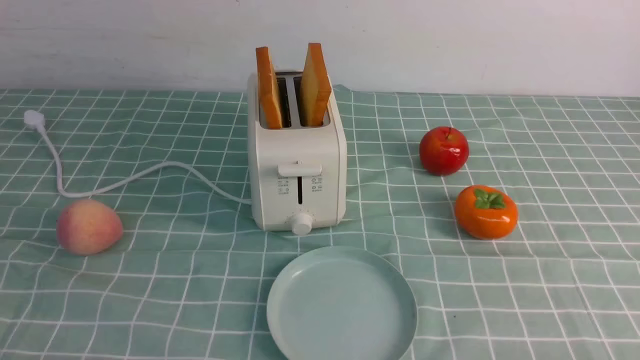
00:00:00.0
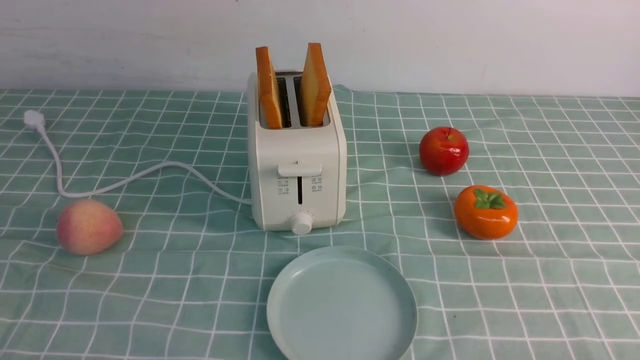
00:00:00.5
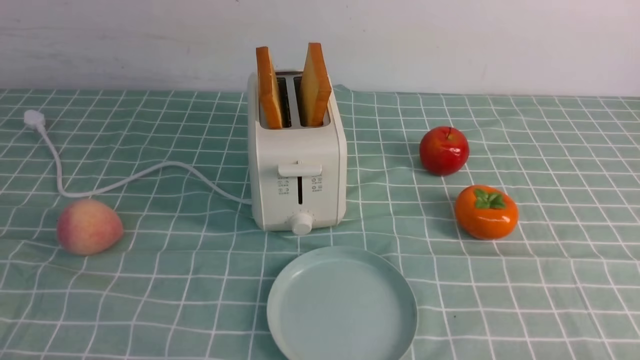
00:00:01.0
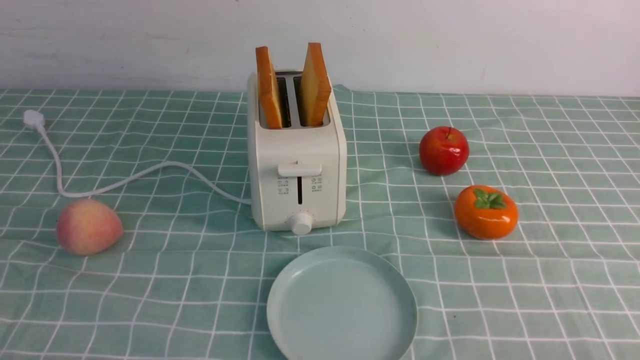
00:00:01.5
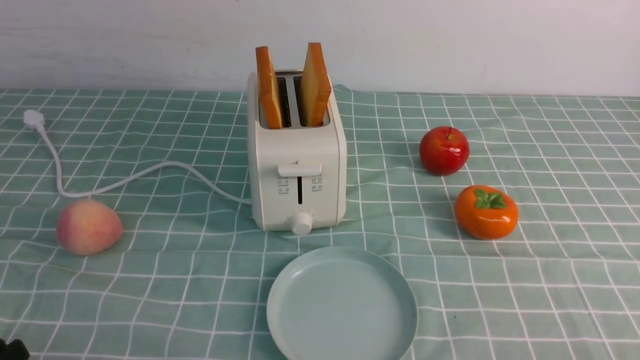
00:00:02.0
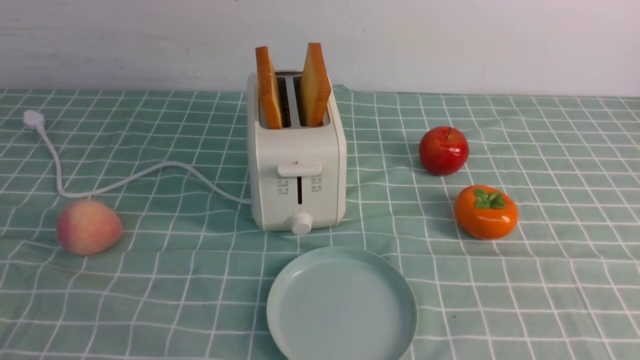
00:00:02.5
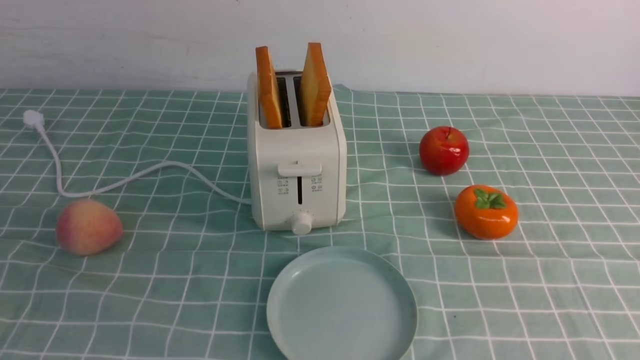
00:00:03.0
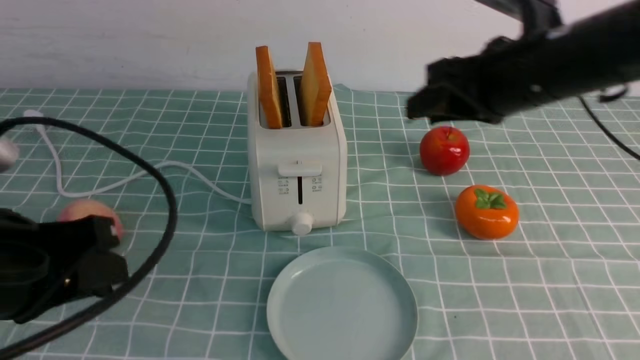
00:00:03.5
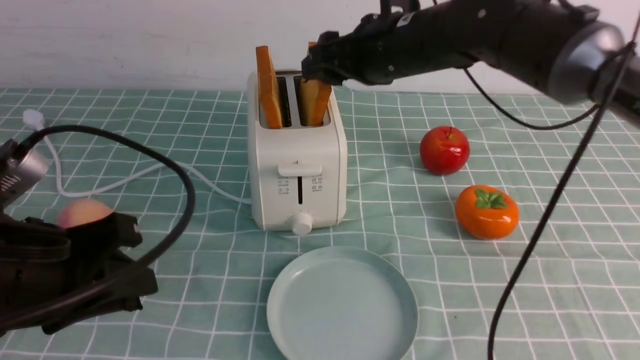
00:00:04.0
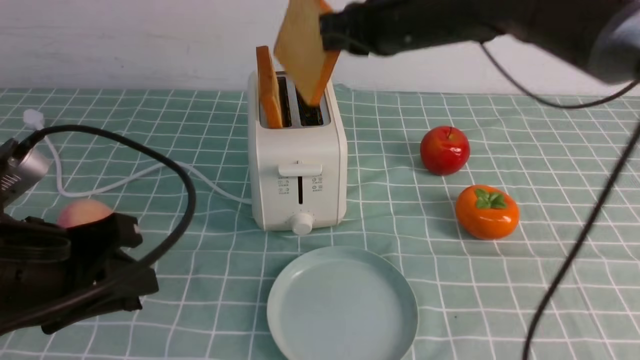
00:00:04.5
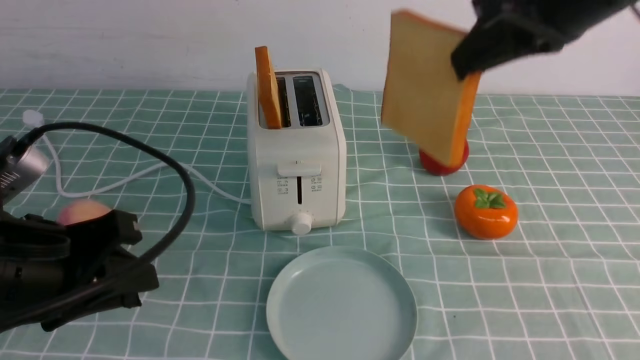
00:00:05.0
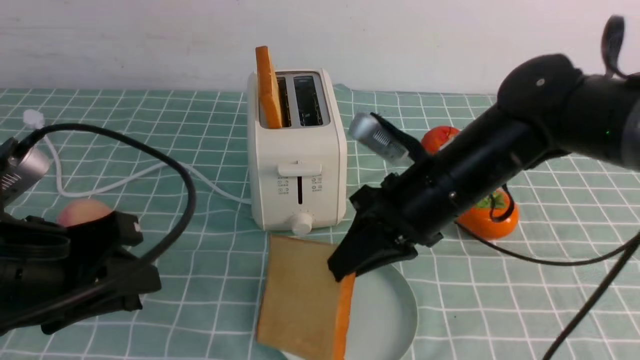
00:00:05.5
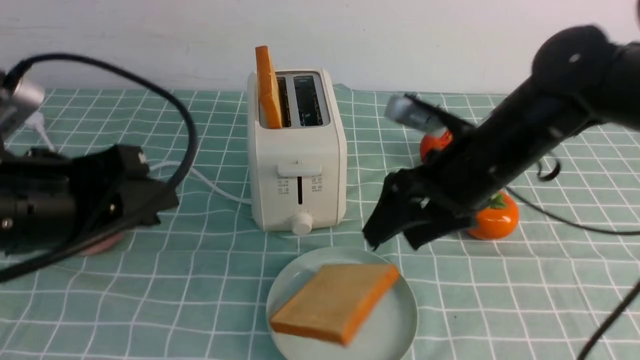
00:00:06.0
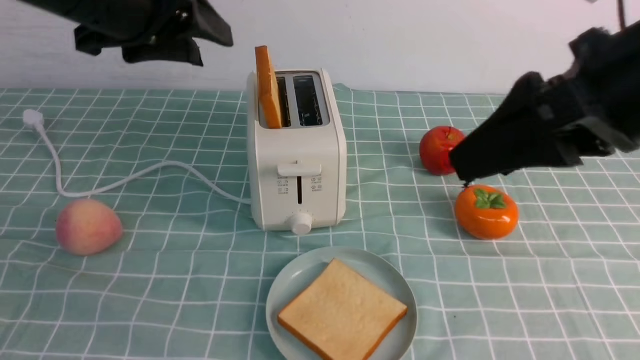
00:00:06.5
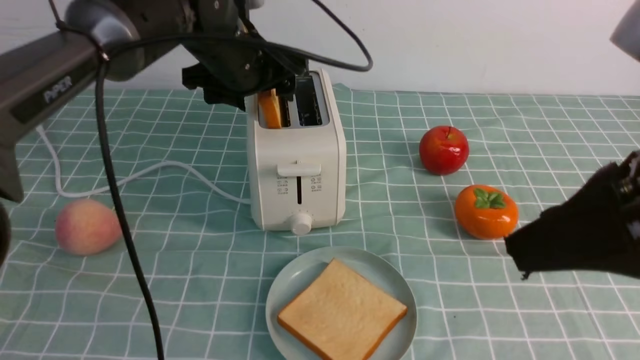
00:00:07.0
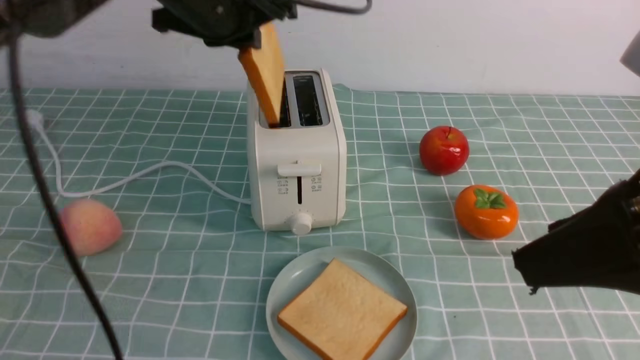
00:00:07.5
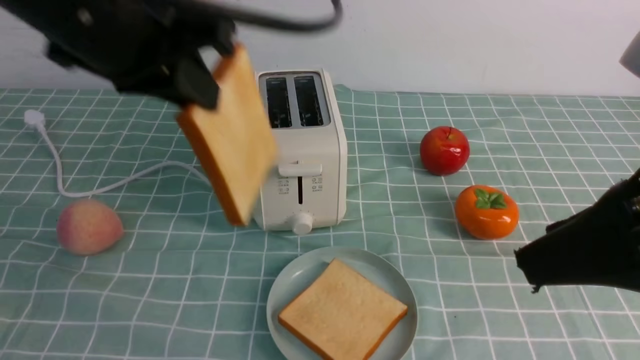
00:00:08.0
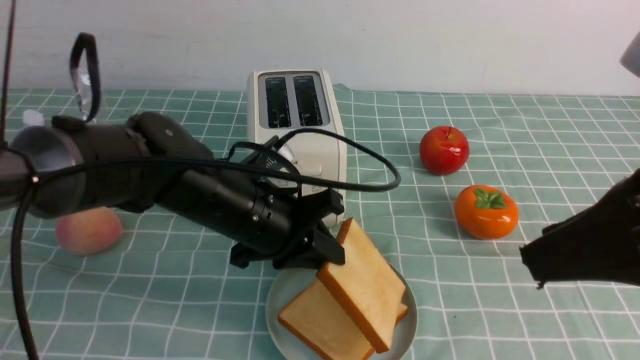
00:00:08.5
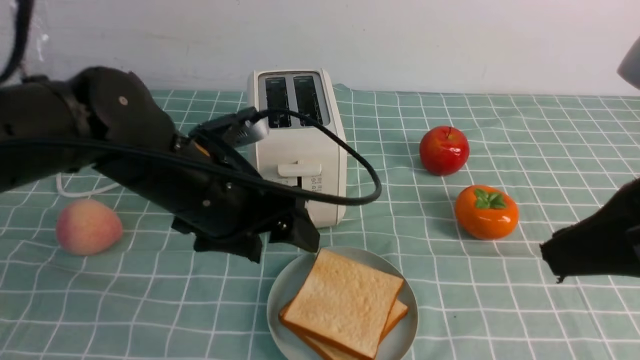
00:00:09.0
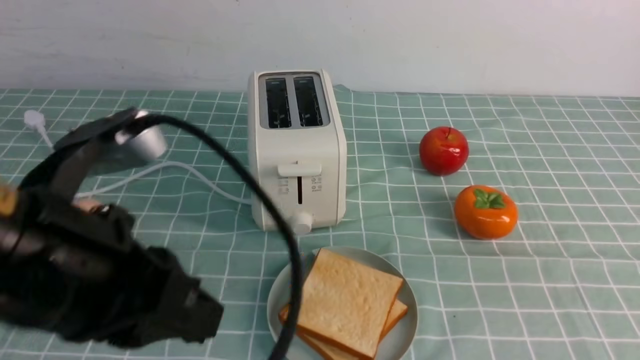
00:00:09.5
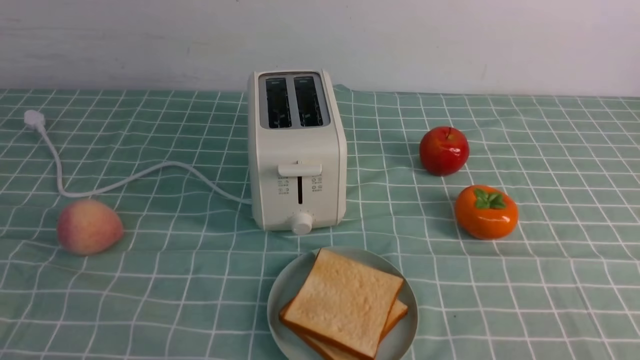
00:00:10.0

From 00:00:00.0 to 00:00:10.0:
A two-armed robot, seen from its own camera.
Task of the whole recording: take toasted bread from bread machine on blue coffee table place on plate.
Step, from 00:00:00.0 to 00:00:04.0: use the right arm to take out a slice of bread.
Step, from 00:00:04.5 to 00:00:06.0: use the right arm to put a slice of bread into the plate.
Step, from 00:00:06.5 to 00:00:07.0: use the left arm to take out a slice of bread.
Step, from 00:00:08.0 to 00:00:08.5: use the left arm to put a slice of bread into the empty plate.
From 00:00:02.0 to 00:00:04.0: The left gripper shifts some 15 cm forward and upward; the right gripper moves forward and to the left, approximately 40 cm.
From 00:00:04.0 to 00:00:06.0: The left gripper ends up approximately 5 cm from where it was, while the right gripper goes up and down, approximately 15 cm each way, reversing 2 times, and closes and opens again.
From 00:00:06.0 to 00:00:08.0: The right gripper shifts approximately 20 cm backward, upward and to the right, while the left gripper heads to the right and upward, covering about 10 cm, travels forward and back again, roughly 25 cm each way, and closes its fingers.
From 00:00:08.0 to 00:00:10.0: The left gripper heads backward, covering approximately 25 cm, and opens, then closes again. The right gripper goes some 20 cm downward, backward and to the right, and closes its fingers.

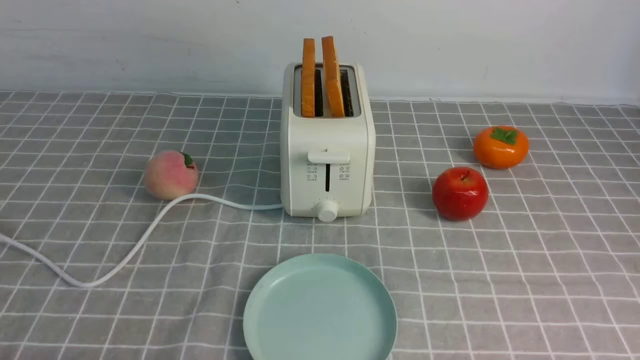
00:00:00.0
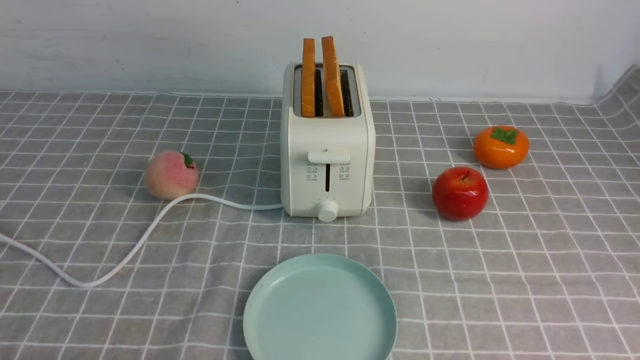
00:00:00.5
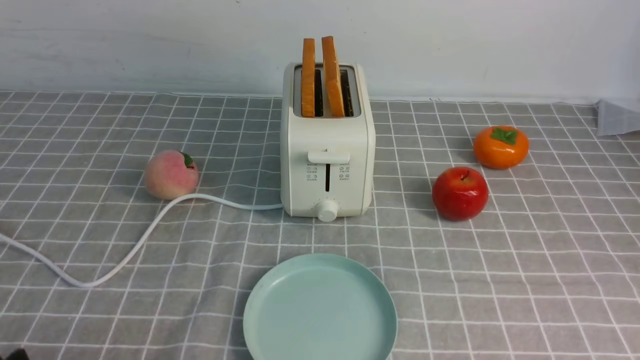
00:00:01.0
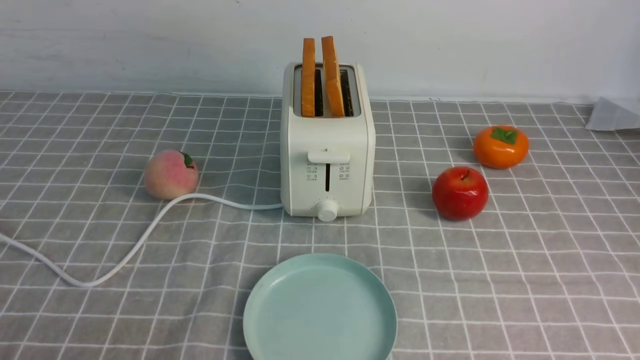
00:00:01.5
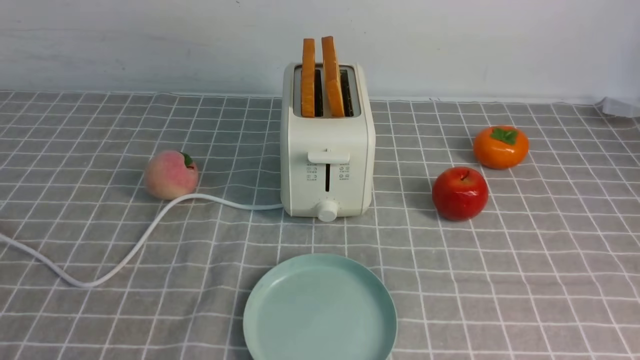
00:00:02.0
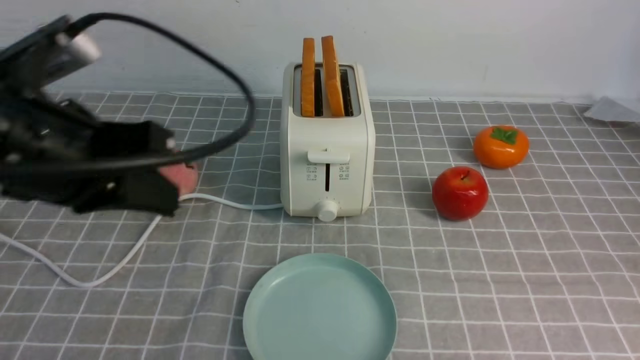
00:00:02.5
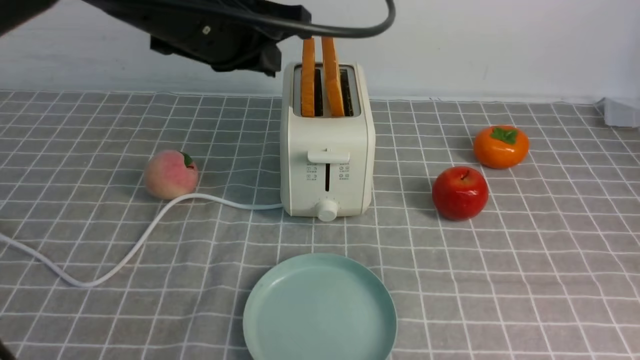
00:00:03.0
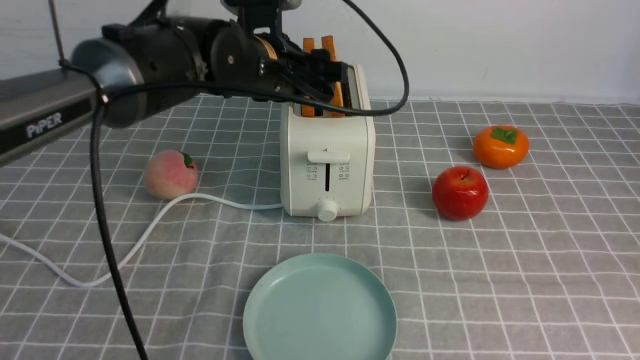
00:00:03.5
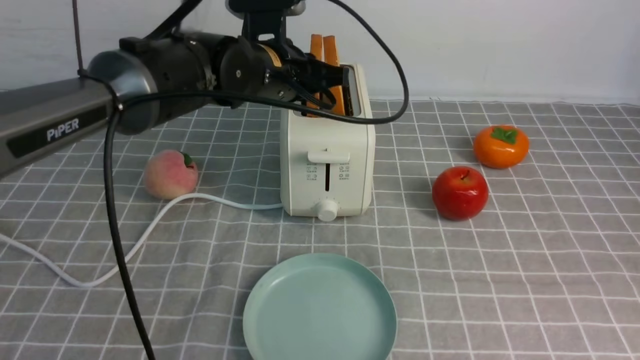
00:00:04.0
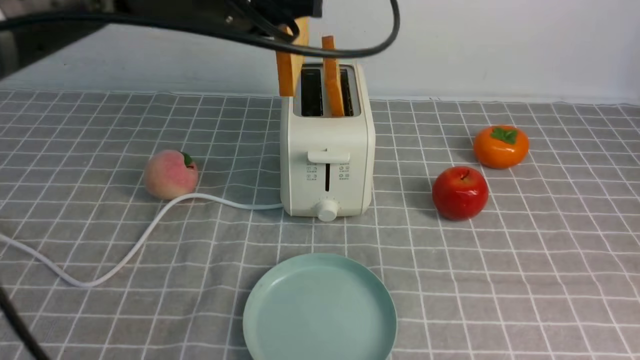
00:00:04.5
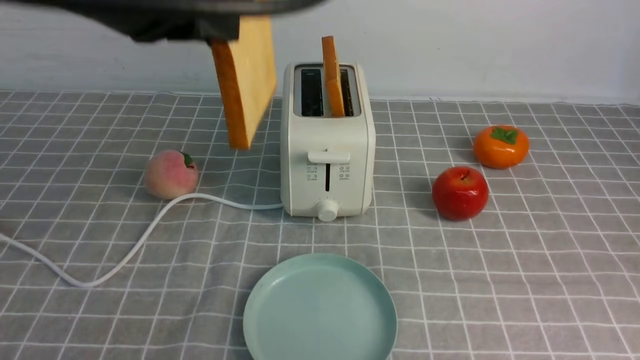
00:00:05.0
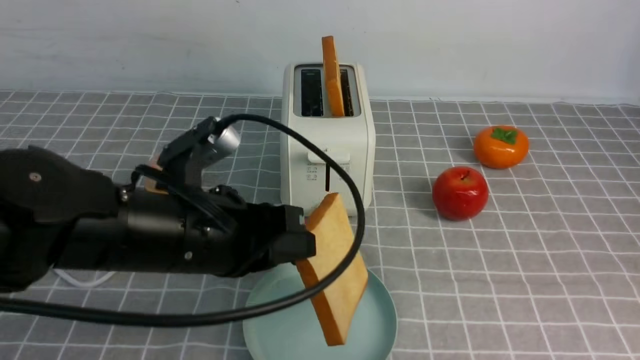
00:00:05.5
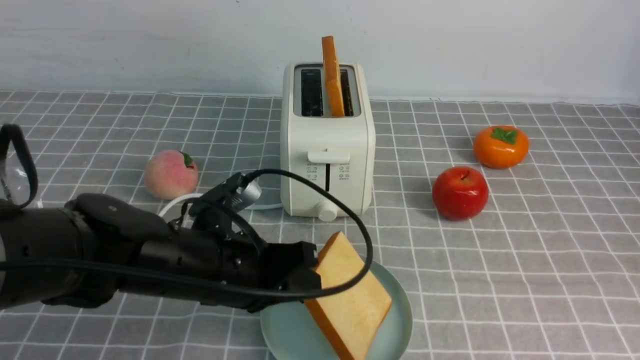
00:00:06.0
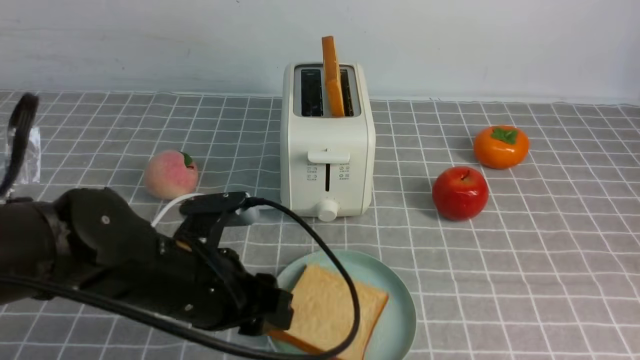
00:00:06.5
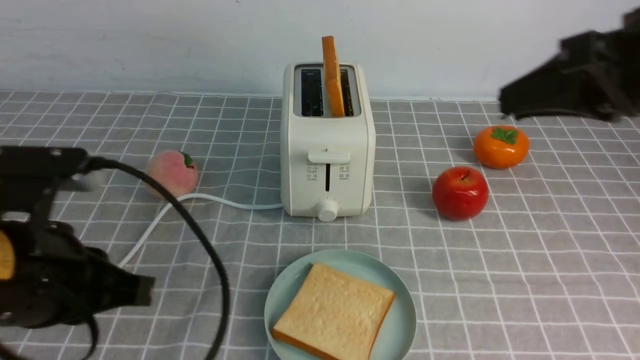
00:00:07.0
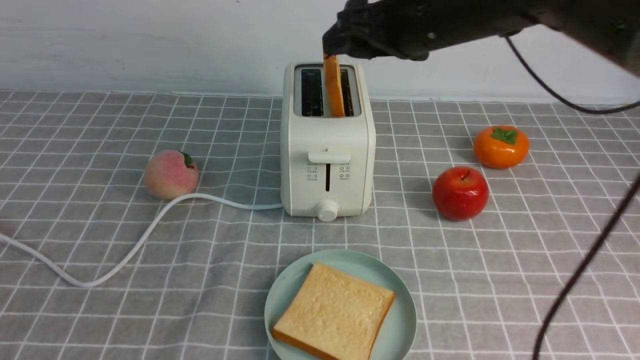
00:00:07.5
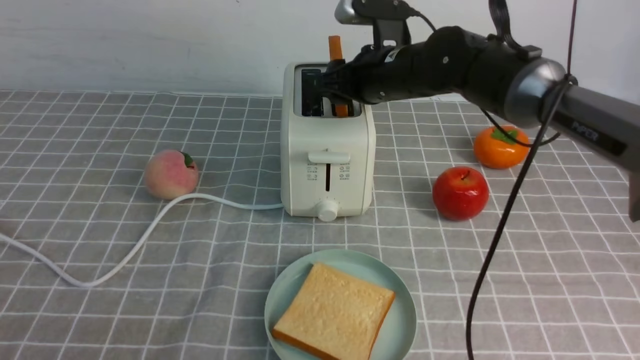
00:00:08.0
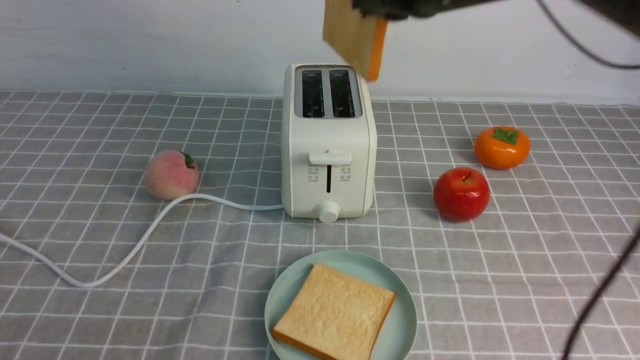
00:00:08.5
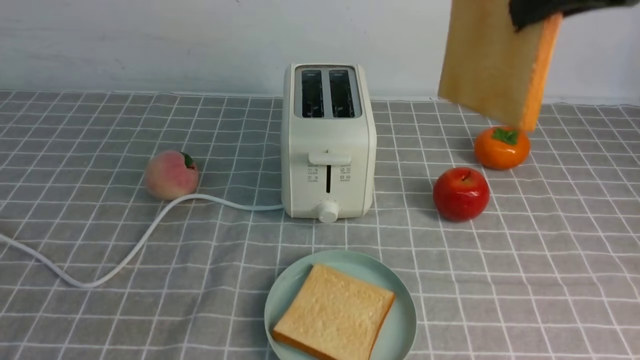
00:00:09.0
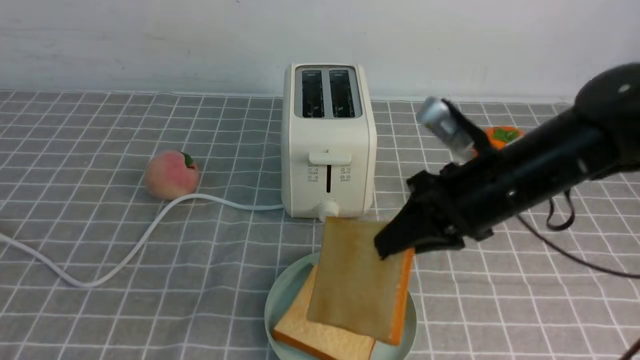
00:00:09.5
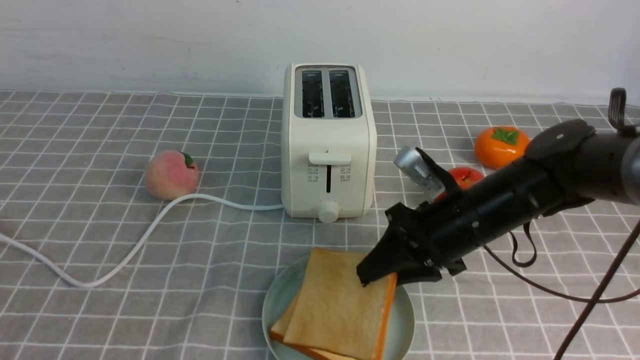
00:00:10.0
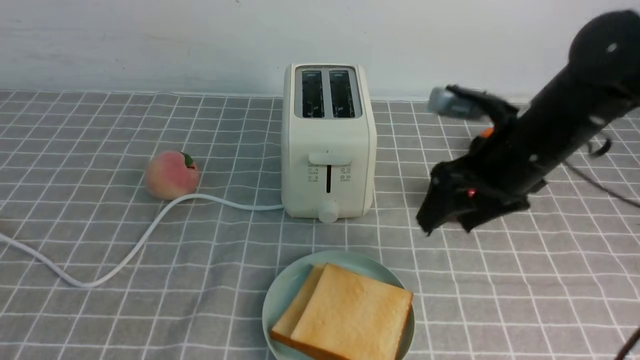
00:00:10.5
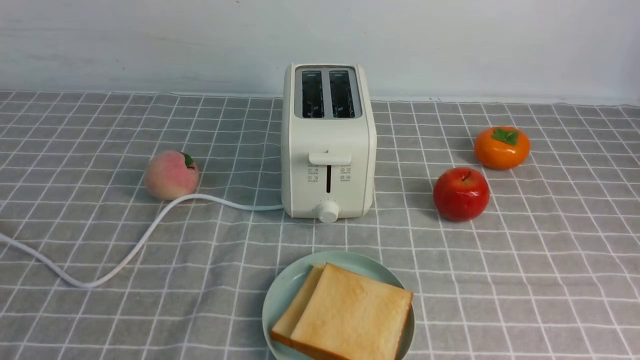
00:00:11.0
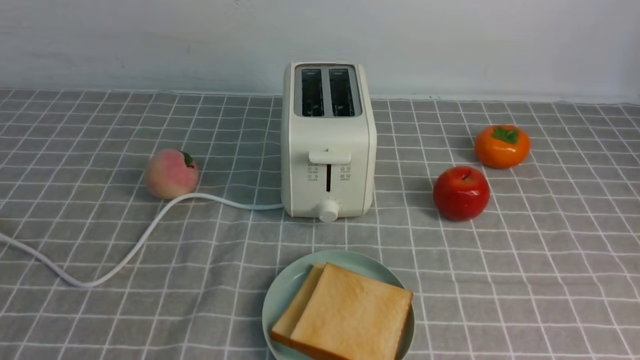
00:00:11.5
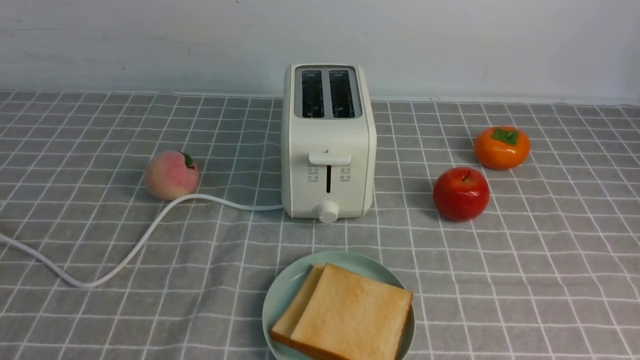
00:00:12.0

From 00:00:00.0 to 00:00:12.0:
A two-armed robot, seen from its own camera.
Task of the whole recording: take toasted bread from bread machine on grey coffee table place on plate.
Step, from 00:00:00.0 to 00:00:04.0: use the left arm to take out a slice of bread.
Step, from 00:00:04.5 to 00:00:06.5: use the left arm to put a slice of bread into the empty plate.
Step, from 00:00:07.0 to 00:00:08.5: use the right arm to take out a slice of bread.
Step, from 00:00:09.0 to 00:00:10.5: use the right arm to put a slice of bread into the plate.
From 00:00:02.0 to 00:00:04.0: The left gripper is displaced forward and to the right by approximately 40 cm, and opens and closes again, while the right gripper shifts approximately 5 cm forward.
From 00:00:04.0 to 00:00:06.0: The left gripper goes some 20 cm backward and downward.
From 00:00:06.0 to 00:00:08.0: The left gripper goes about 30 cm backward, to the left and upward, and closes up. Meanwhile the right gripper moves forward and to the left, some 40 cm, and opens up.
From 00:00:08.0 to 00:00:10.0: The right gripper travels backward, downward and to the right by roughly 20 cm.
From 00:00:10.0 to 00:00:12.0: The right gripper goes about 35 cm backward and to the right, and closes its fingers.
